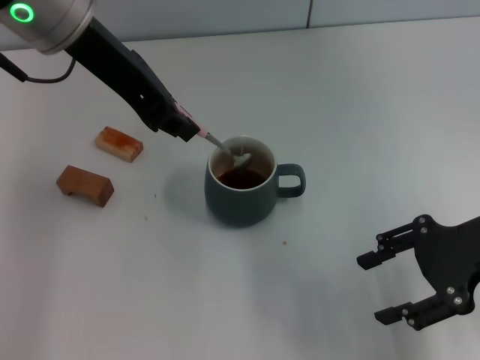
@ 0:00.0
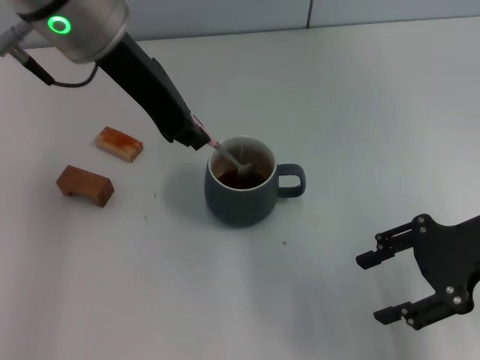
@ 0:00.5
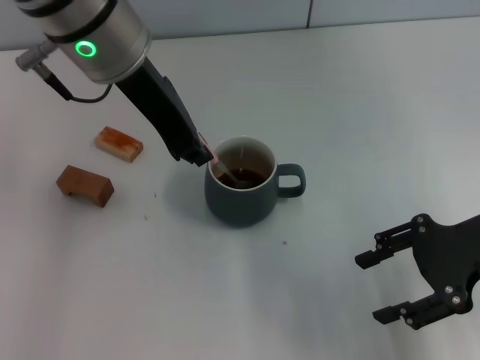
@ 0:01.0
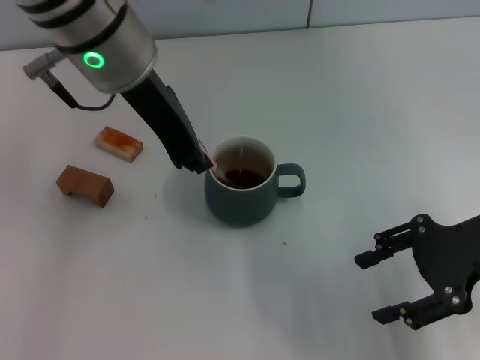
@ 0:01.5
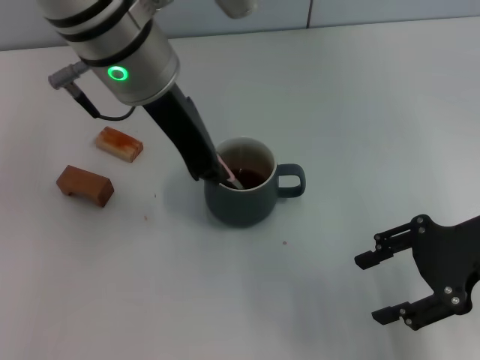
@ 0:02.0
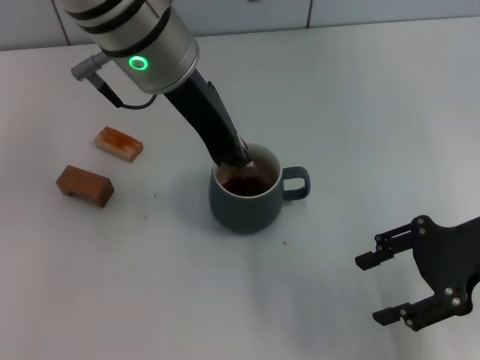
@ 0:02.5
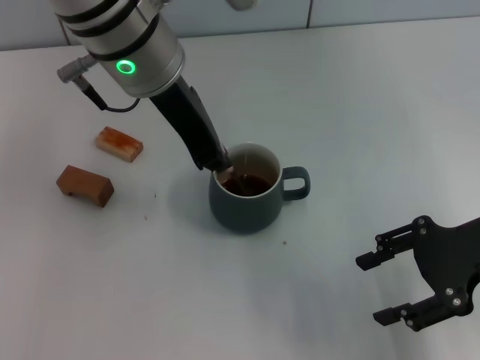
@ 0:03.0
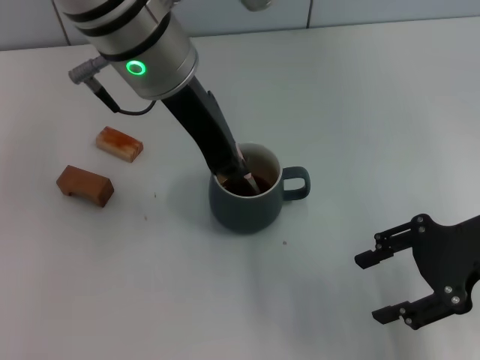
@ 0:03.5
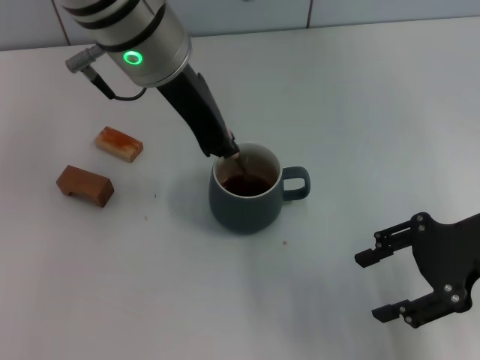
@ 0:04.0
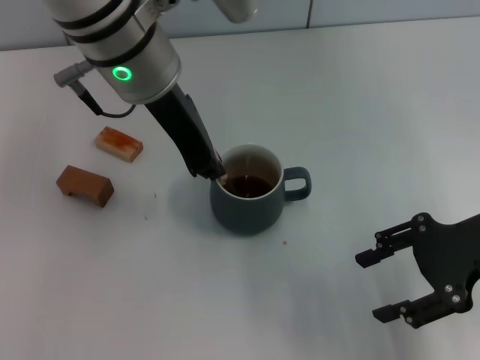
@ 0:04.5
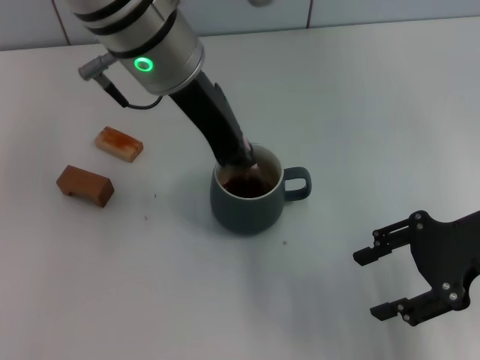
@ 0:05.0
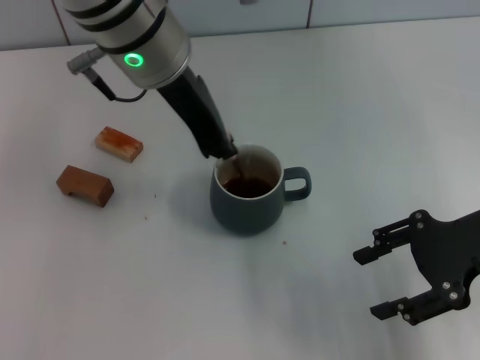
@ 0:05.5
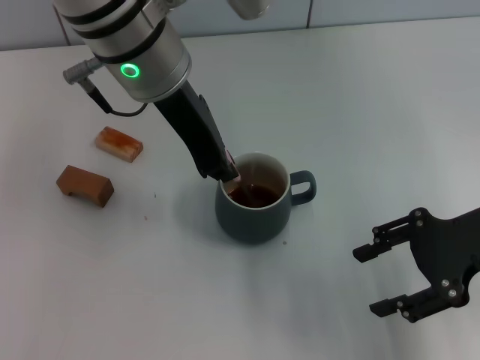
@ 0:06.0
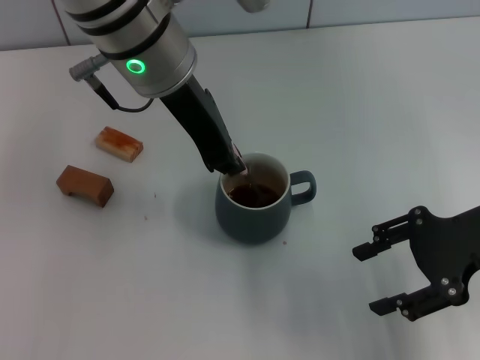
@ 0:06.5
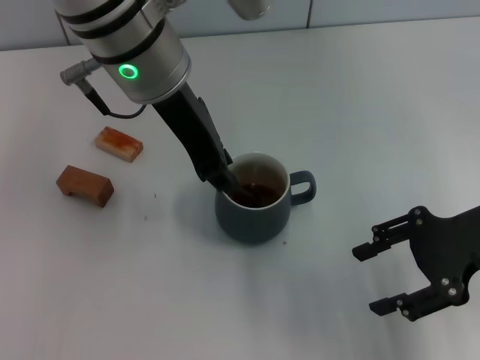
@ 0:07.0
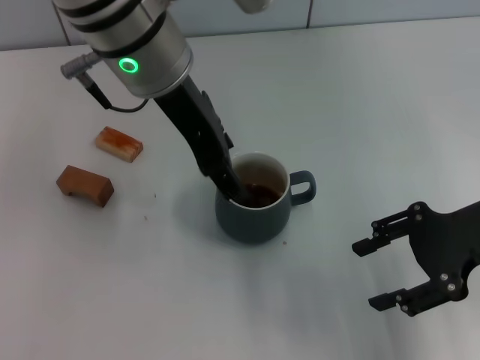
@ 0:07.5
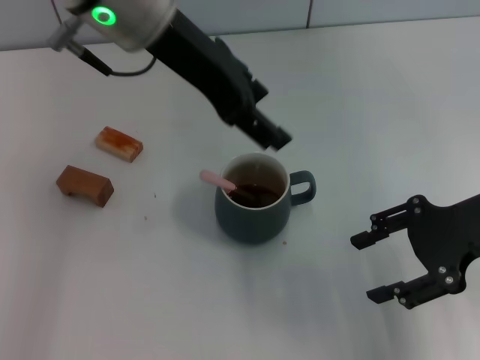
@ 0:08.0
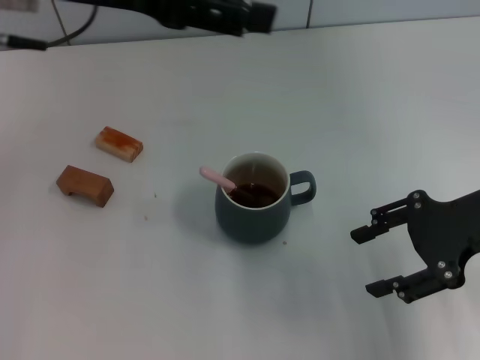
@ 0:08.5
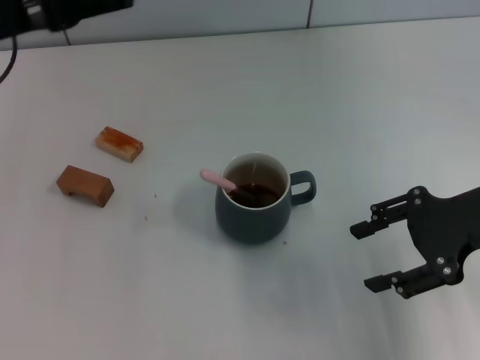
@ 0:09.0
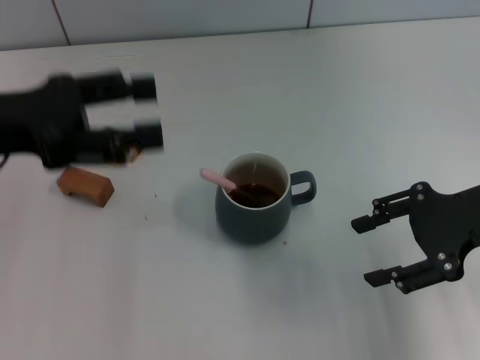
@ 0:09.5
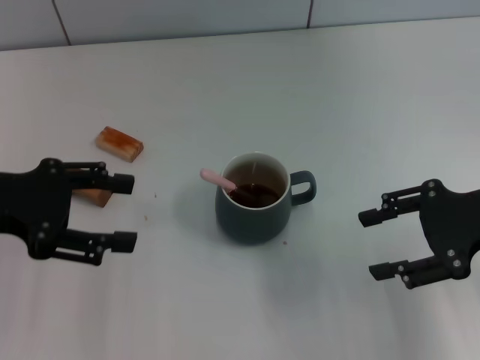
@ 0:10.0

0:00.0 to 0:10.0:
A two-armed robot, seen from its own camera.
Task of the whole recording: Move the grey cup to the center, lift the pink spoon, stir it three times in the cup, and put the spoon into the cup.
Step, 0:00.0 to 0:08.0: Stir the coffee in the cup with the left gripper.
0:00.0 to 0:02.0: The left gripper is displaced to the right by roughly 5 cm.
0:02.0 to 0:06.0: The grippers move only a little.
0:06.0 to 0:08.0: The left gripper opens up.
0:08.0 to 0:10.0: The left gripper moves to the left, downward and backward, some 25 cm.

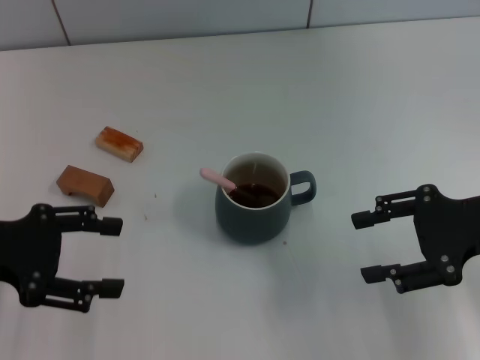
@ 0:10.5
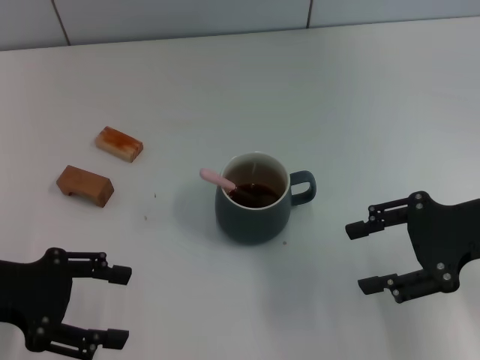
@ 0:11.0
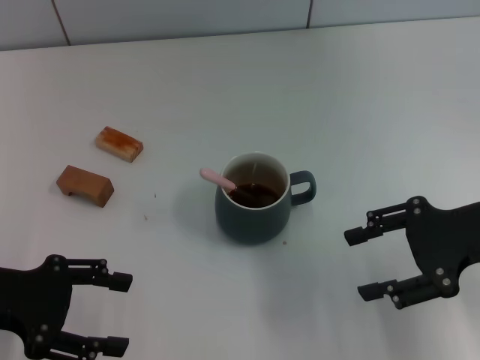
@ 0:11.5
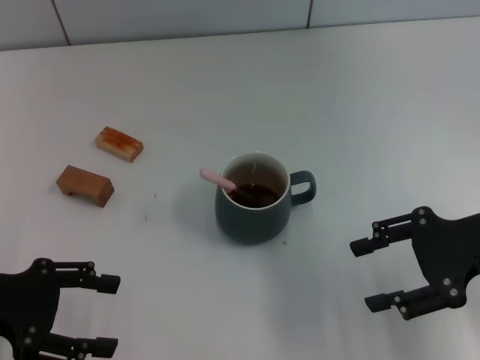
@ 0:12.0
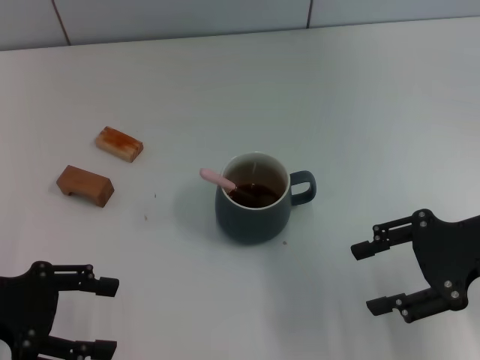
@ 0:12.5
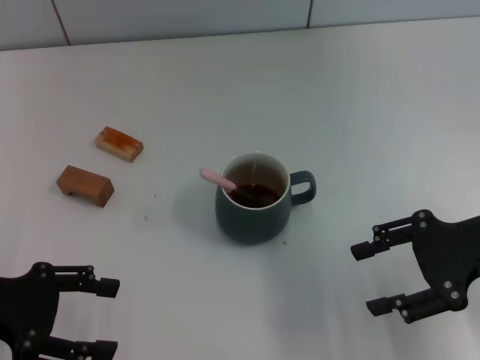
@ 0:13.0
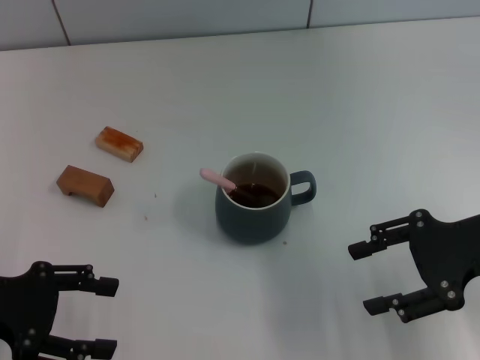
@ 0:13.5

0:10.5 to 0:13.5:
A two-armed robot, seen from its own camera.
Task of the whole recording: Move the grey cup to the center, lift the pink spoon, stir it three times in the cup, and put the spoon into the cup.
0:10.5 to 0:12.0: The grippers move only a little.
0:12.0 to 0:13.5: The two grippers keep their place.
